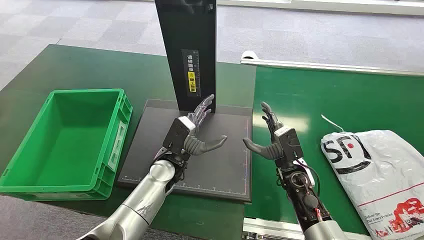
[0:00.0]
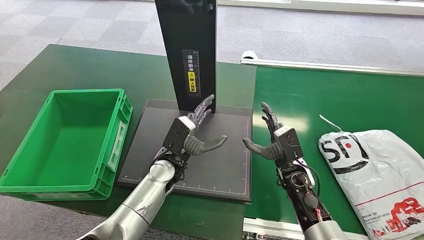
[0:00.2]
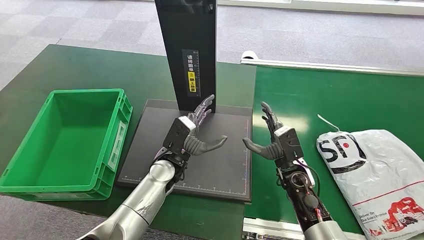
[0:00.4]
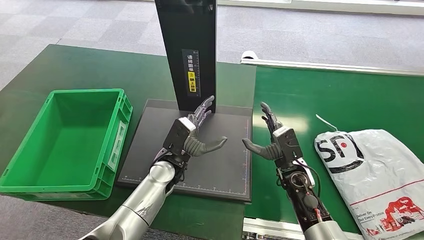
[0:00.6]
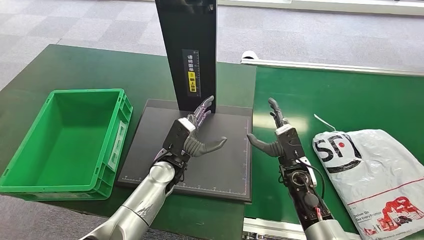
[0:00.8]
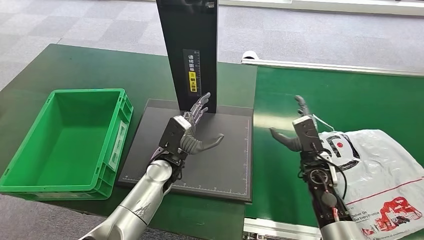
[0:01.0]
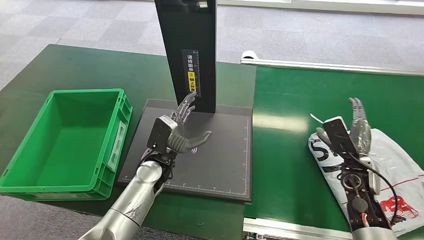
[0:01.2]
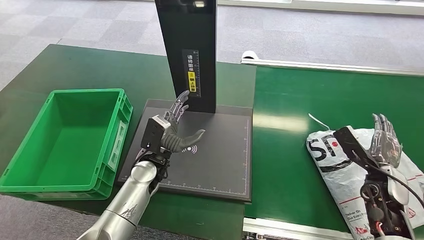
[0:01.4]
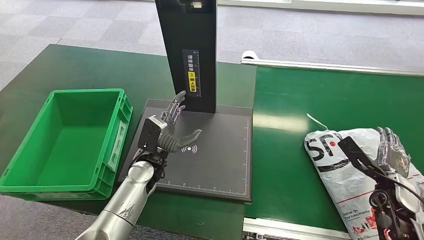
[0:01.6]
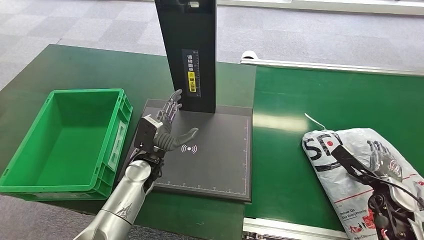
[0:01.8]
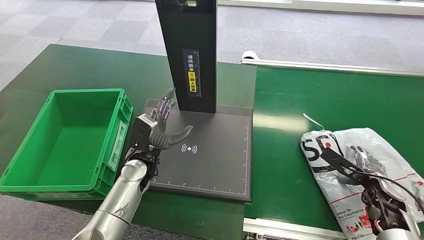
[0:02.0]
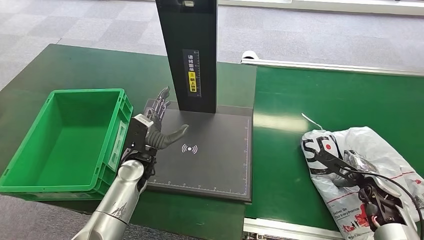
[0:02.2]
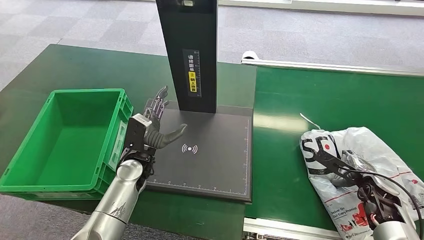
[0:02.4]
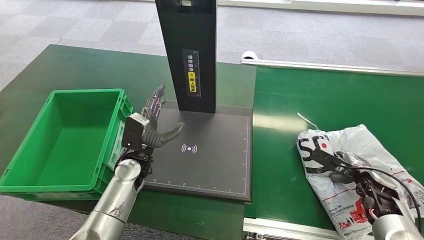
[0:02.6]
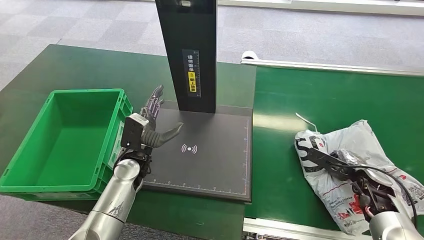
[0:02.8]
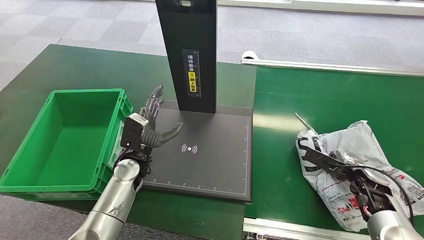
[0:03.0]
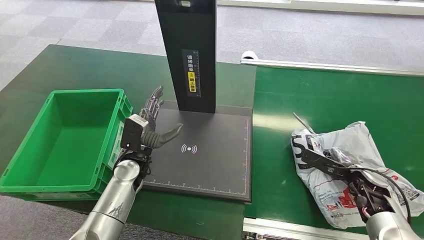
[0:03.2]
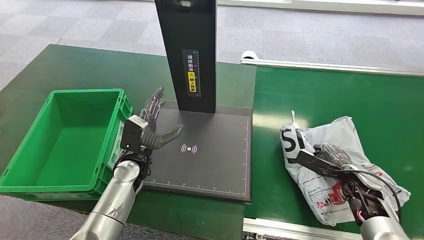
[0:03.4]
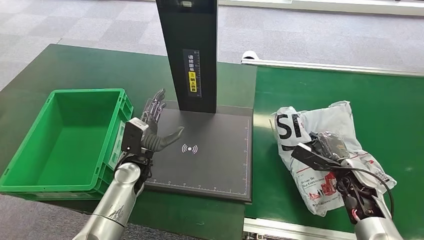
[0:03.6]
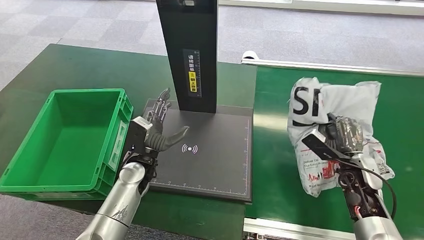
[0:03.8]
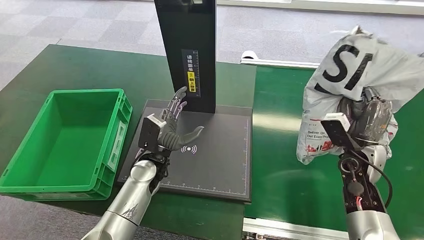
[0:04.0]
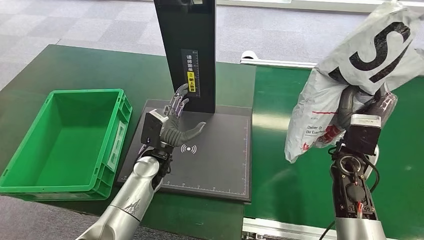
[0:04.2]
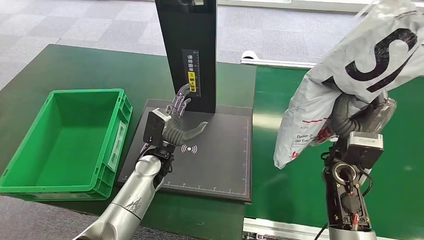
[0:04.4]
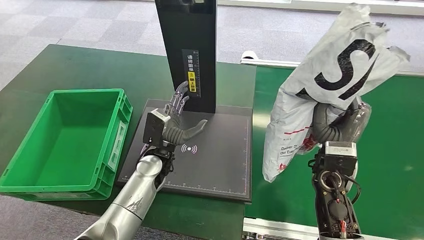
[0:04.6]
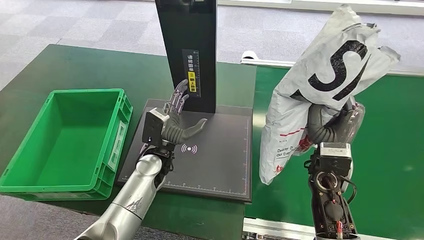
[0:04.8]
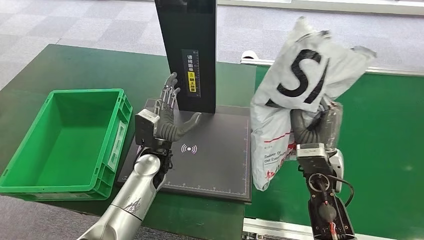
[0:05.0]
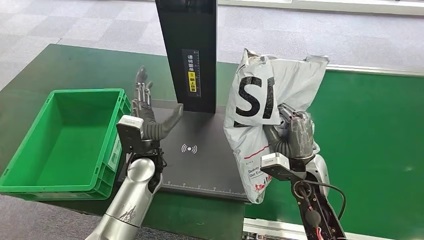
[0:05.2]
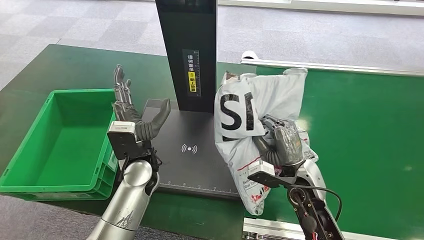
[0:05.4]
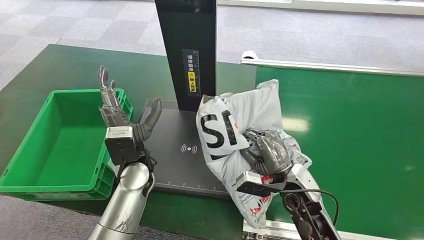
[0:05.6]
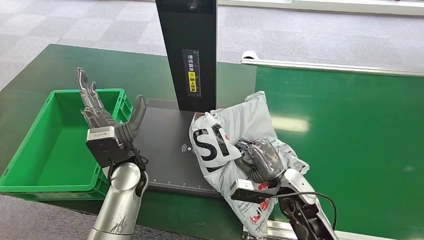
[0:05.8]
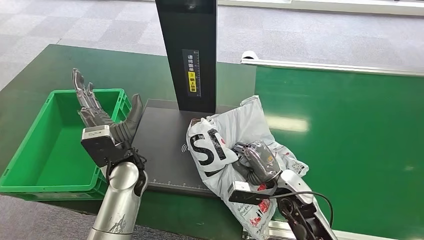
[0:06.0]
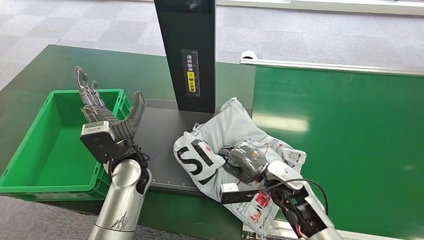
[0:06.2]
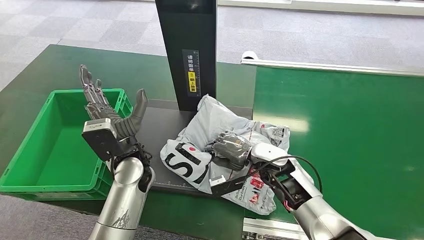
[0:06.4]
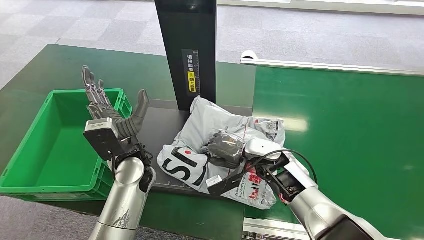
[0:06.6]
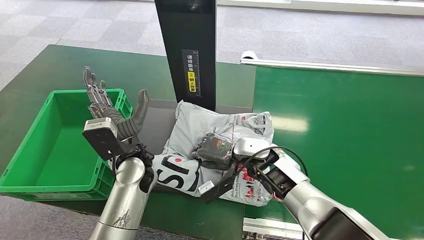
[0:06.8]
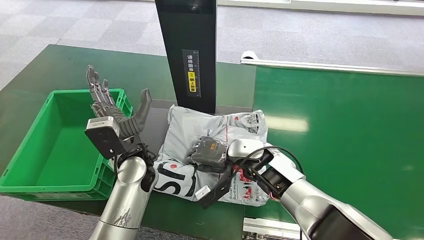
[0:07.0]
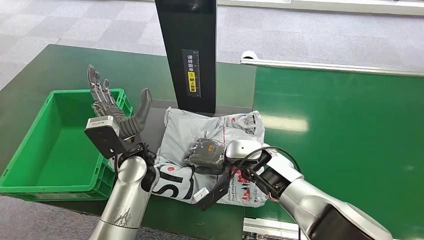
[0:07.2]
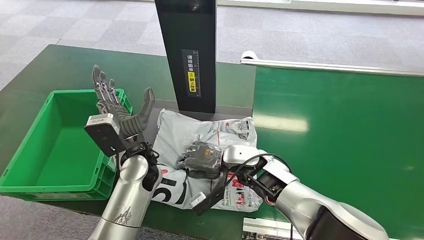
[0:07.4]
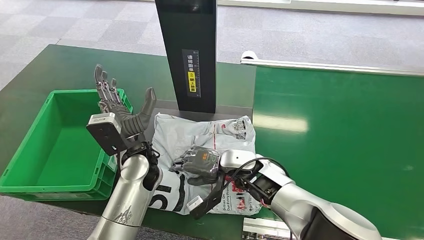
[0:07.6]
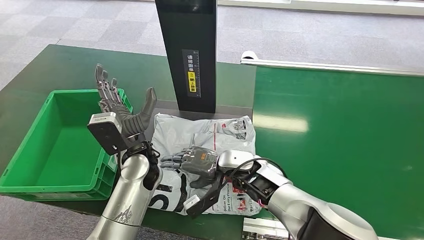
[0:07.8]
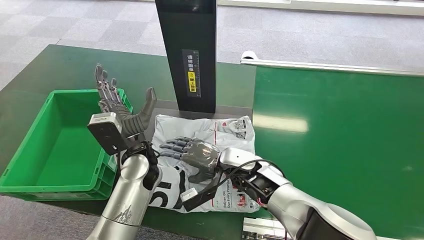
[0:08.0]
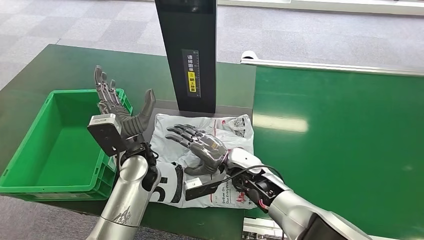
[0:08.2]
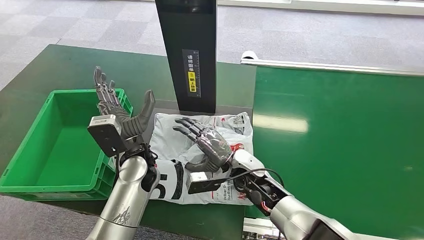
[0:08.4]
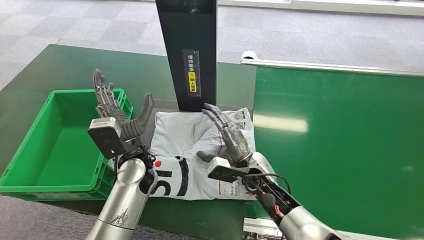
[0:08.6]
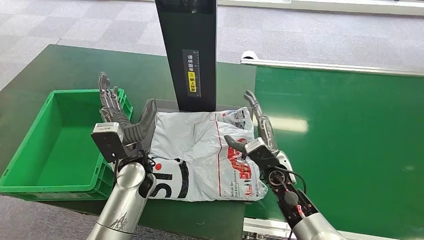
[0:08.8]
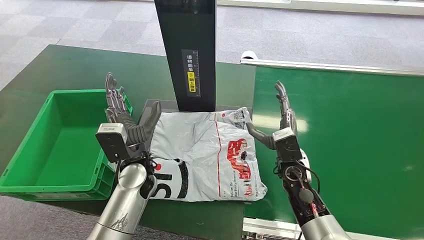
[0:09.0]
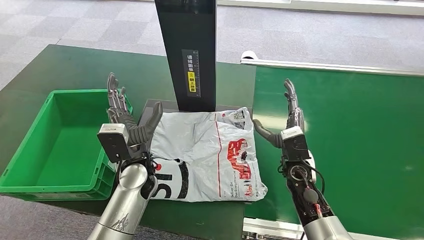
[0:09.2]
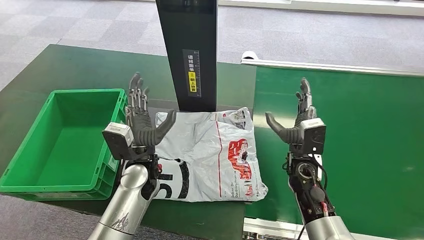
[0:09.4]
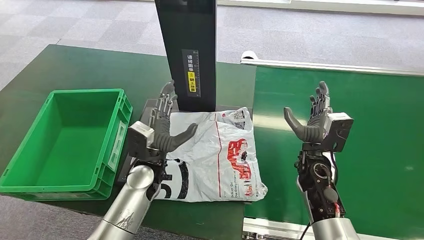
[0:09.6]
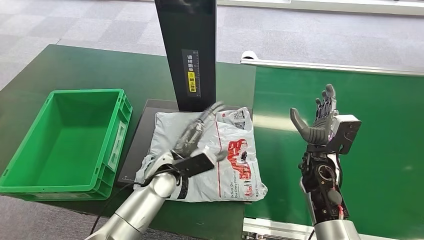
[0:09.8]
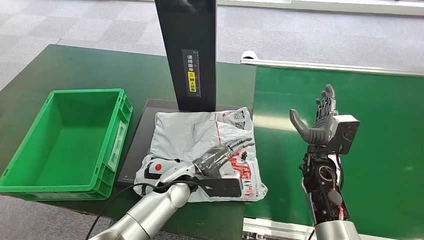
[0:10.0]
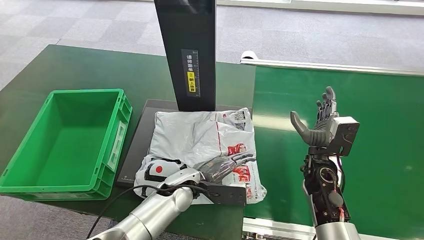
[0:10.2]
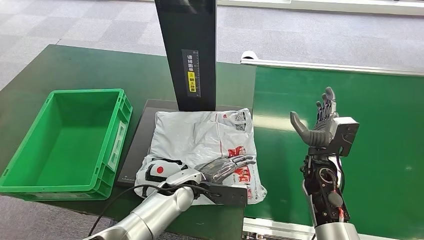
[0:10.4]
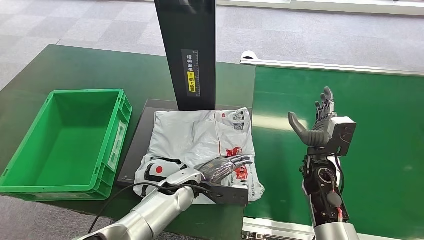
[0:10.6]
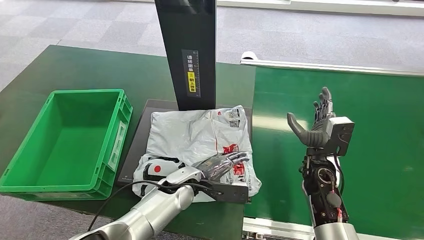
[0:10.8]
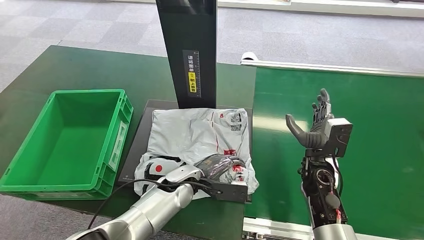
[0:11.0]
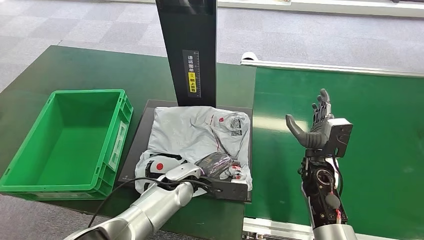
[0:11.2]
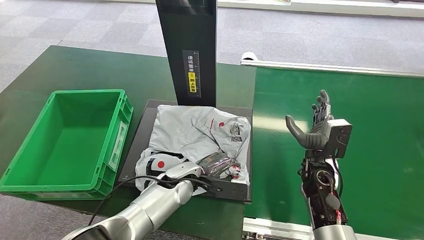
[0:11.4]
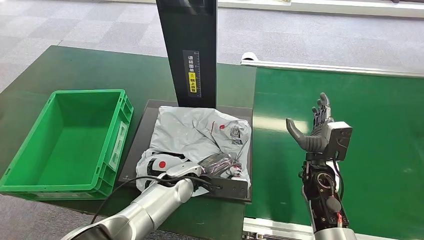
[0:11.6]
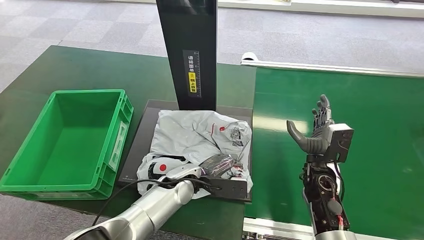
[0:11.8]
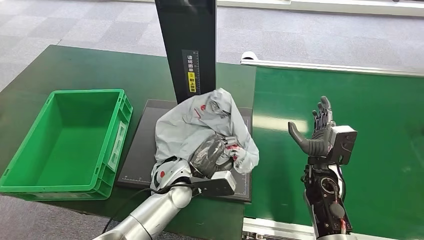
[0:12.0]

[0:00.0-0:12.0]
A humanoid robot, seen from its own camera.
Step, 0:00.0 to 0:04.0: Pick up the package from the conveyor belt.
Step, 0:04.4 to 0:08.8: Place the package onto the inbound machine.
0:07.6 to 0:09.0: The right hand shifts roughly 10 cm to the right.
0:09.0 to 0:10.4: The left hand travels to the right and downward by about 10 cm, while the right hand moves to the right, some 5 cm.

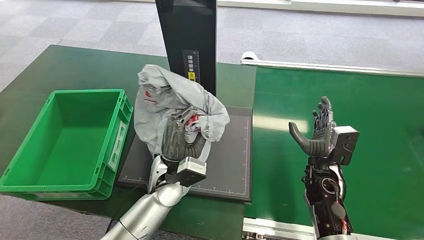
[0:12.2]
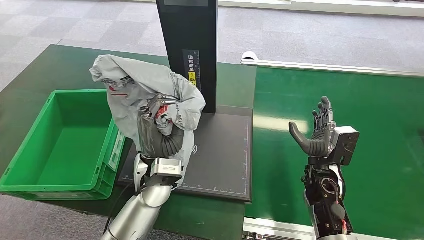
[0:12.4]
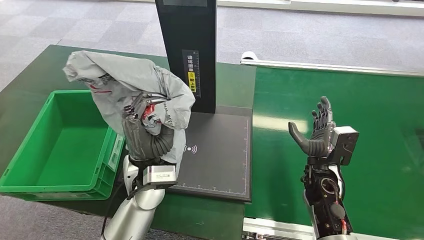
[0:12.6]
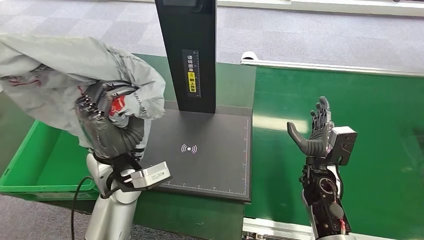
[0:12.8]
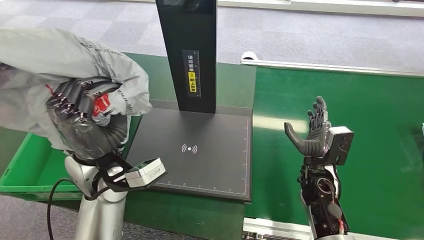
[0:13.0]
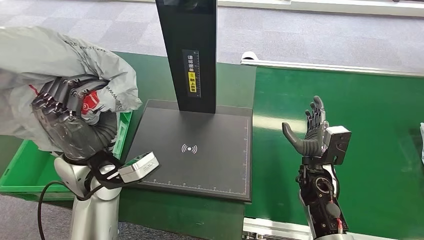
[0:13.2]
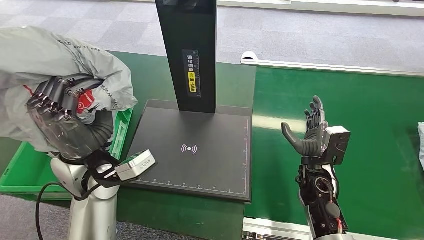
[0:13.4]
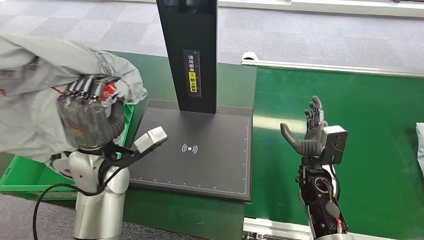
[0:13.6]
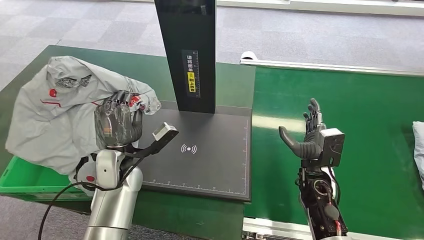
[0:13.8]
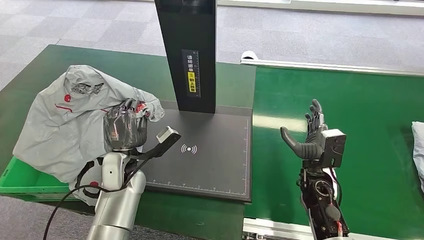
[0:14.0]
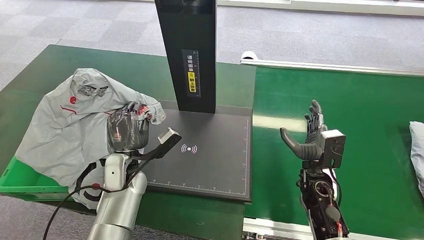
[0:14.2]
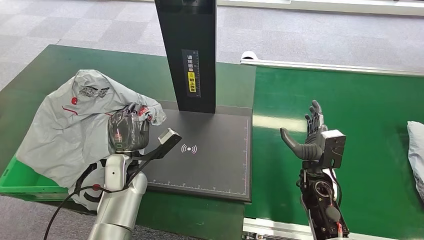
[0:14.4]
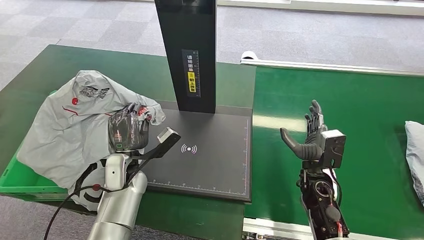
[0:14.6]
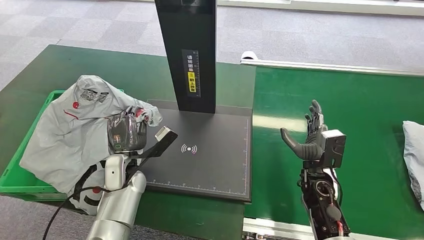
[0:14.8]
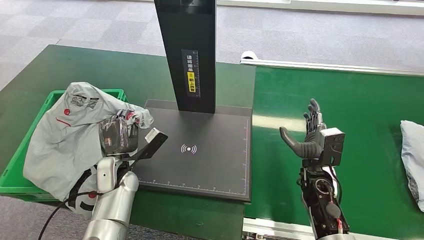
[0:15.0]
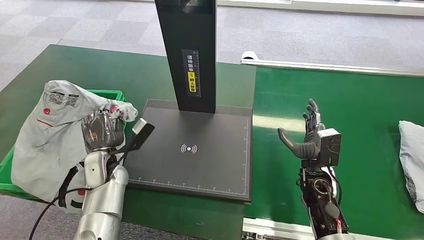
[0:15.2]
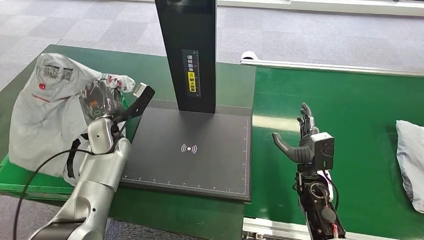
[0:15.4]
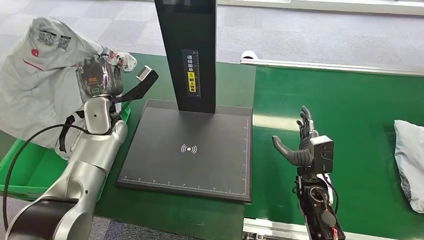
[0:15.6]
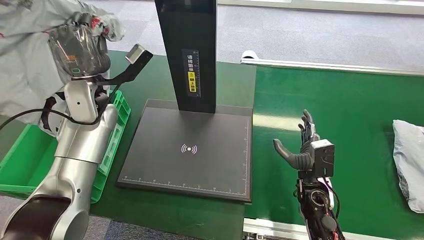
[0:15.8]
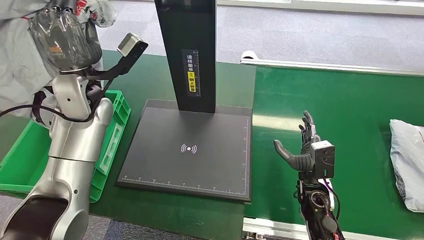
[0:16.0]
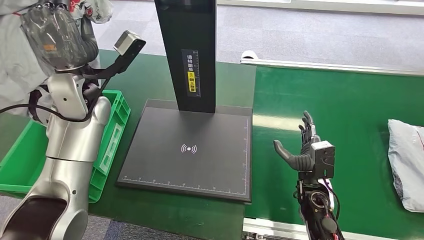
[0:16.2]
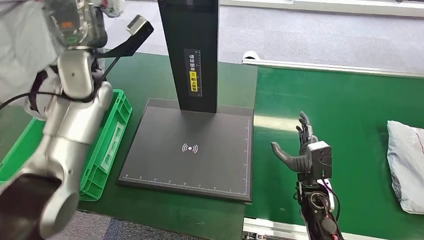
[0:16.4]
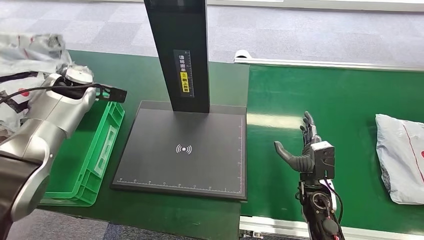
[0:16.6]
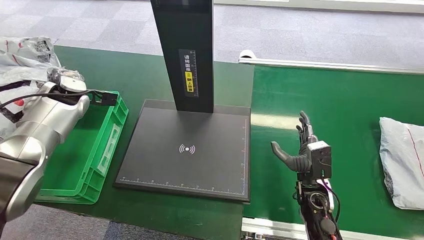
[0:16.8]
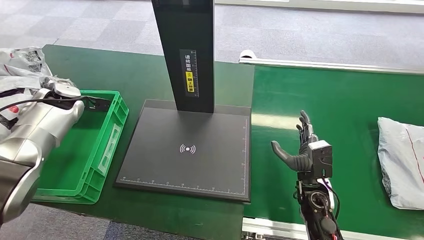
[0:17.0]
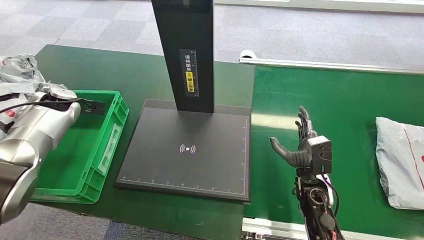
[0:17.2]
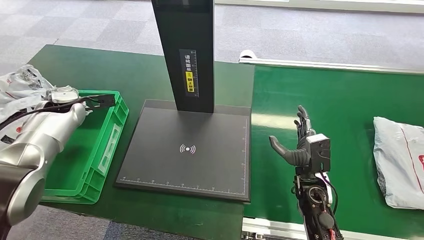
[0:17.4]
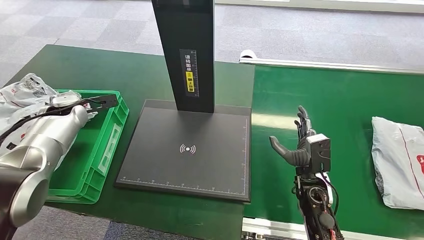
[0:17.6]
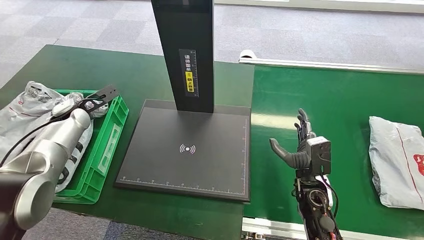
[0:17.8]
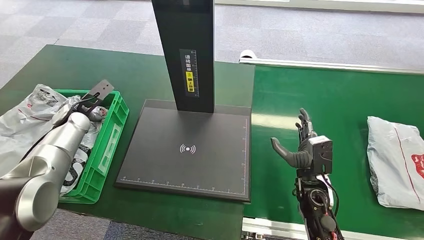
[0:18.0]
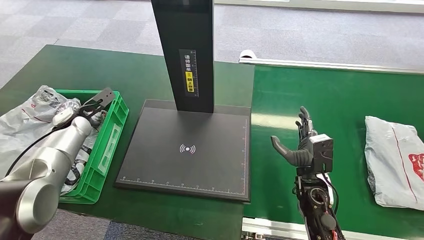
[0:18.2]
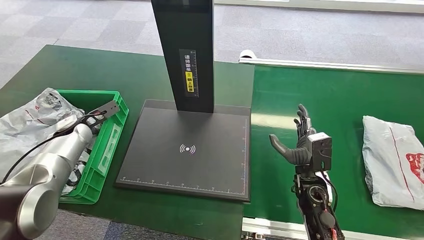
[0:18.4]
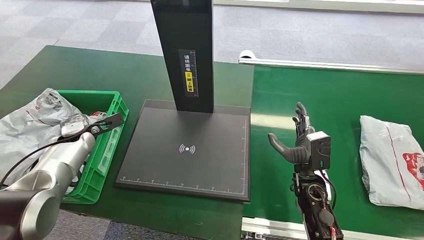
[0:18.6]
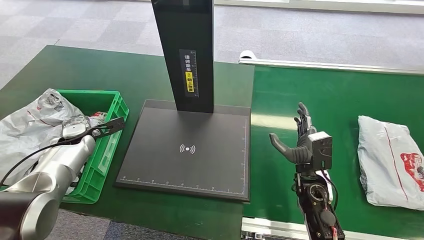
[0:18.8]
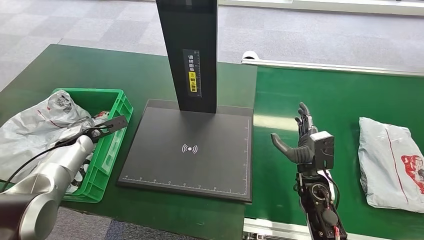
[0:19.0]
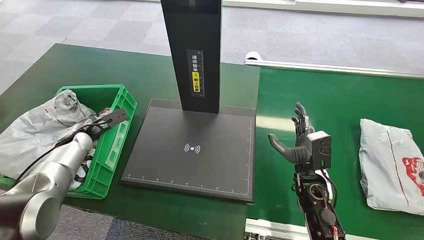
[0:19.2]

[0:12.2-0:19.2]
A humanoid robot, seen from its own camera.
Step, 0:13.2 to 0:19.0: Place the package into the parcel locker.
